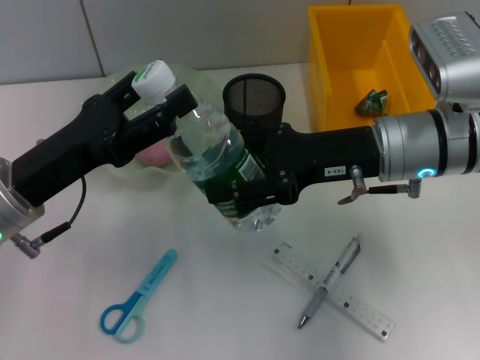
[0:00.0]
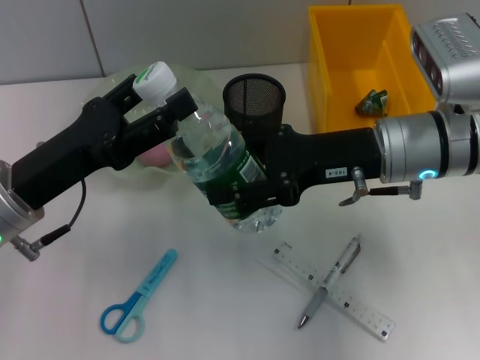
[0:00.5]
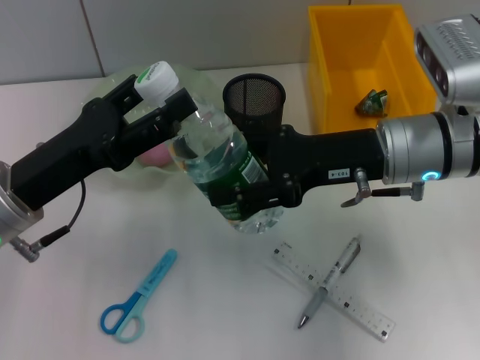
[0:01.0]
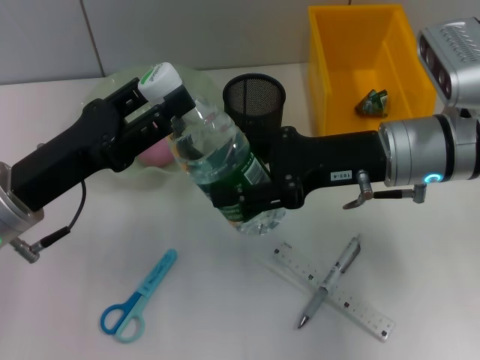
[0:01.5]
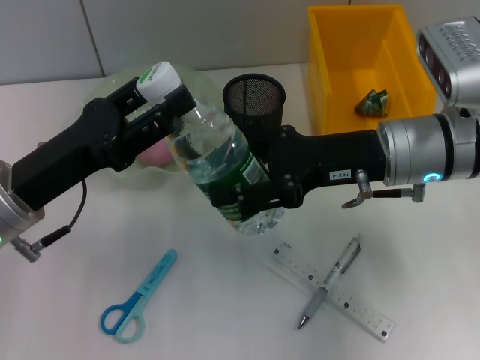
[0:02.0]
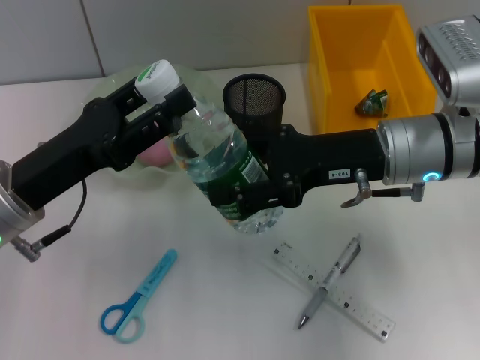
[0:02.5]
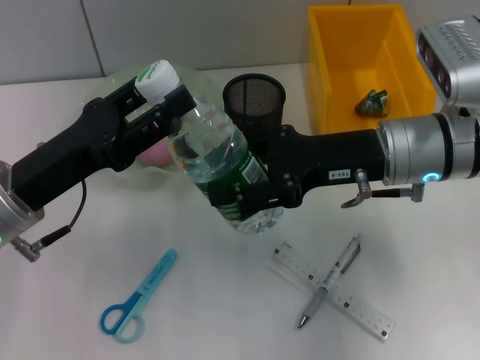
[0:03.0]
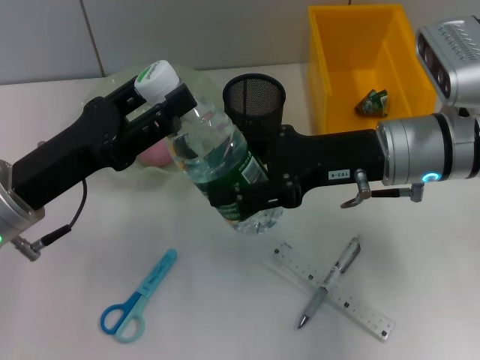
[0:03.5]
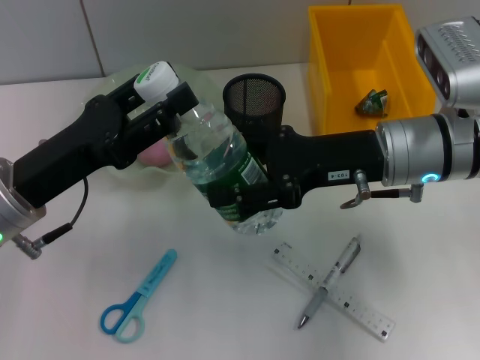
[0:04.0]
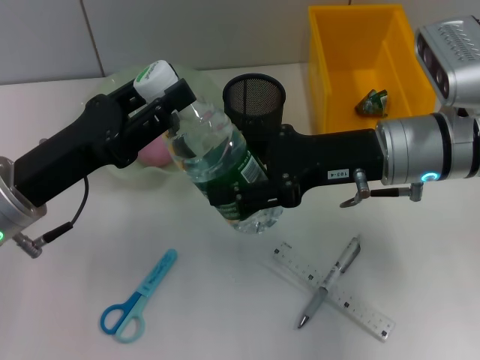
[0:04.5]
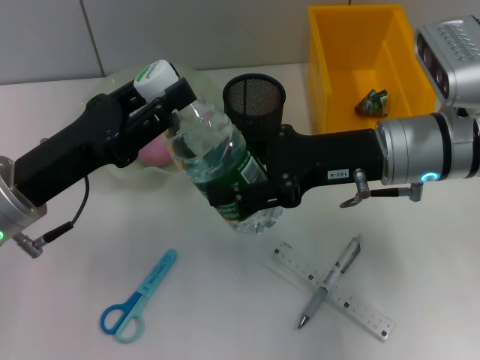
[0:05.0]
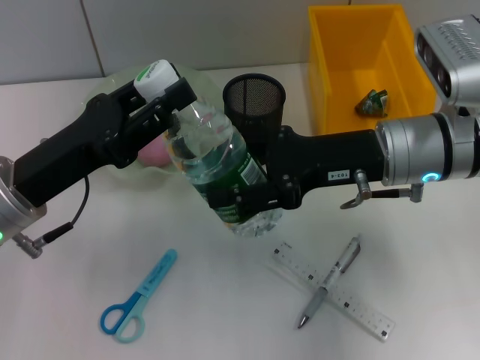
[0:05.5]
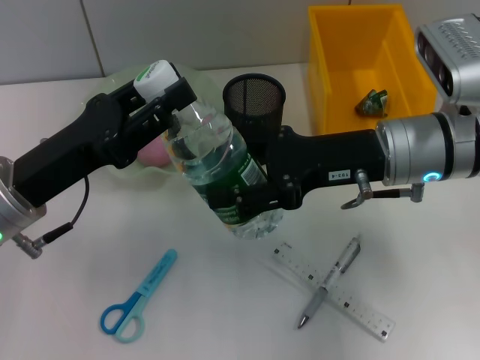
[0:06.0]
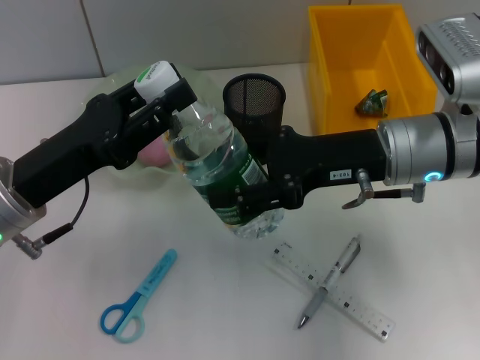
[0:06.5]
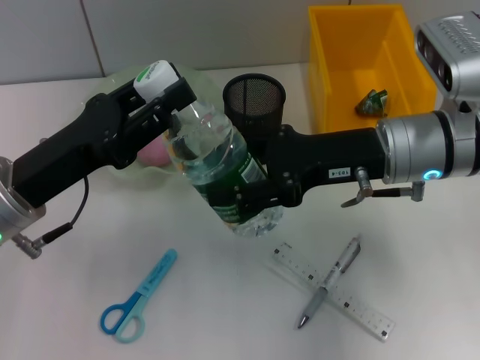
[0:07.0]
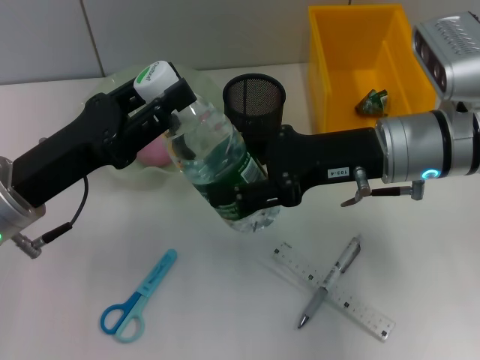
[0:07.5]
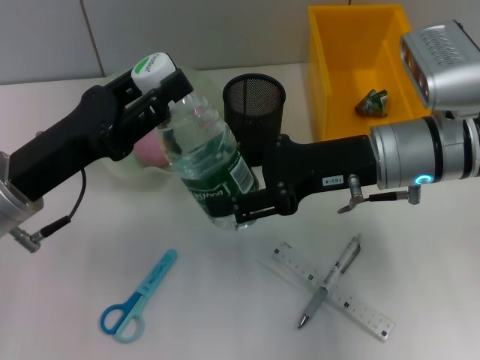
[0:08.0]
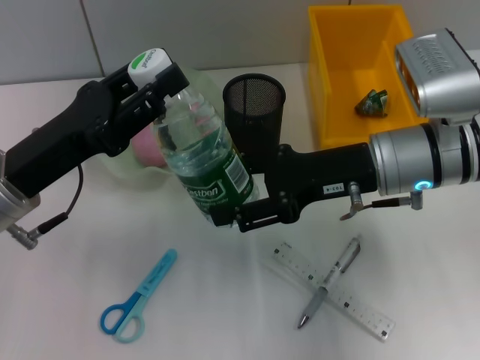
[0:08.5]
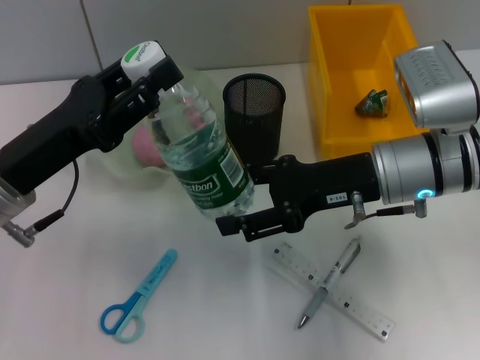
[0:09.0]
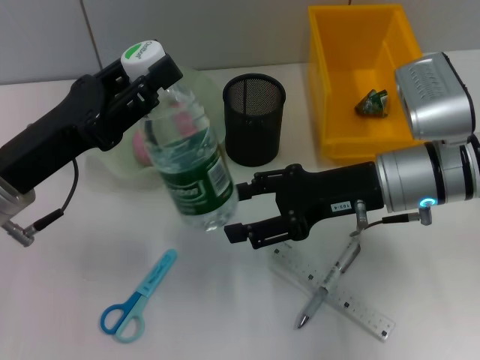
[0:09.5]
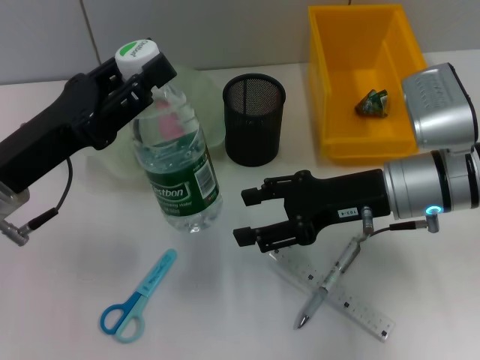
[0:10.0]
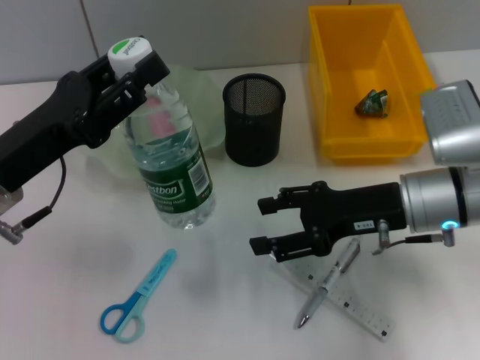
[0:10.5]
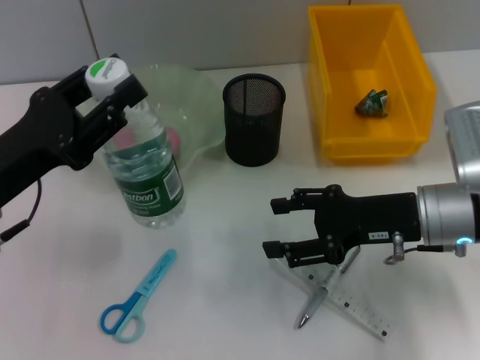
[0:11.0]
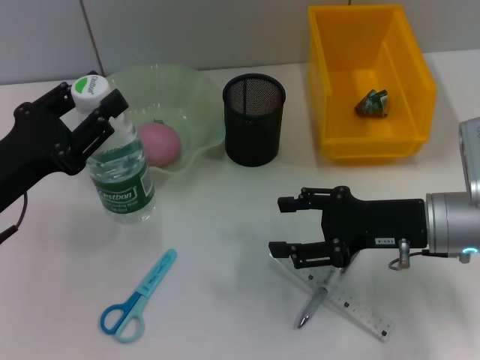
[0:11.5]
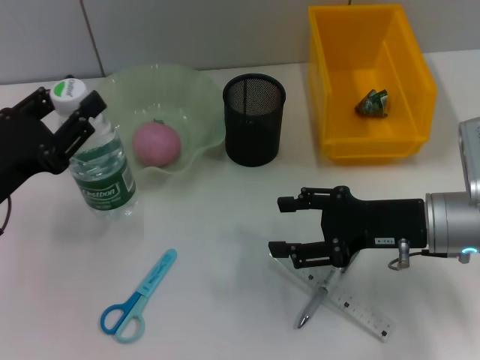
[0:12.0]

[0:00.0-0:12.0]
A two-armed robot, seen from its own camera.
Step, 0:00.0 to 0:08.0: Pass the water bottle from the right hand to the left hand.
0:00.0 to 0:08.0: The two grippers keep their place.
0:10.0 to 0:12.0: The right gripper moves roughly 5 cm, while the left gripper shifts by roughly 5 cm.

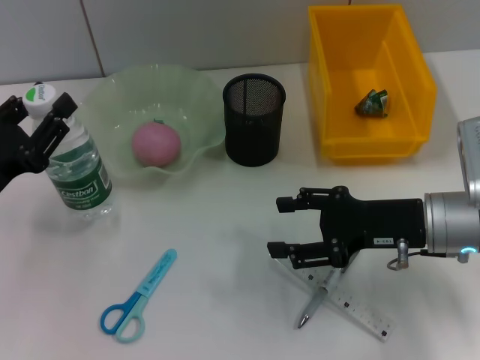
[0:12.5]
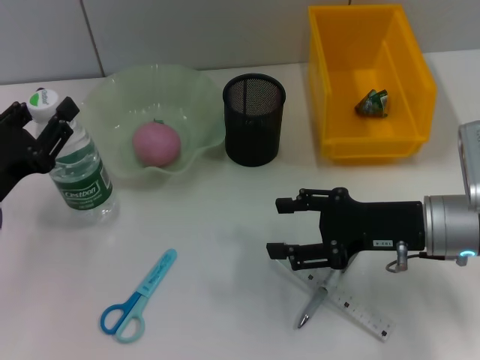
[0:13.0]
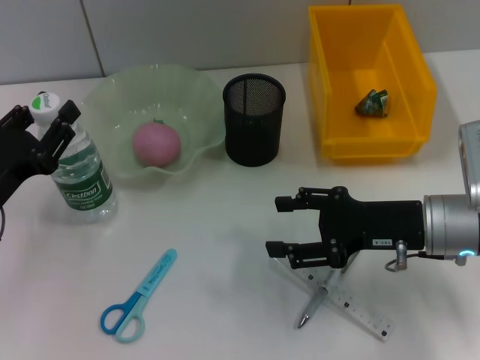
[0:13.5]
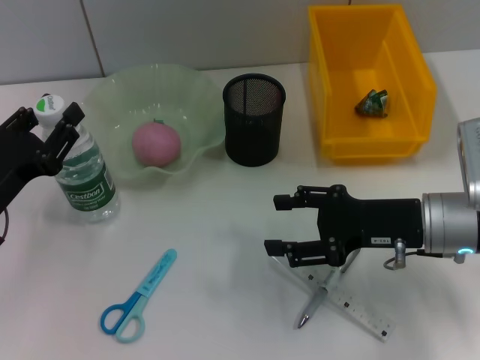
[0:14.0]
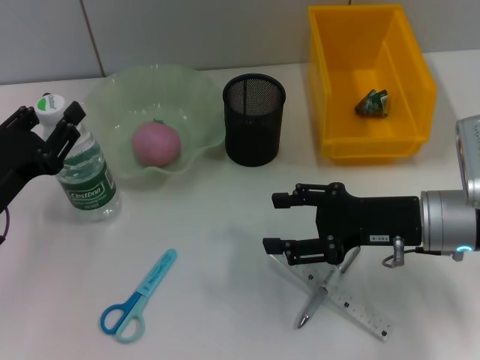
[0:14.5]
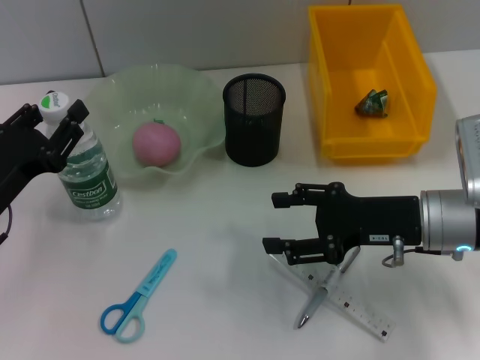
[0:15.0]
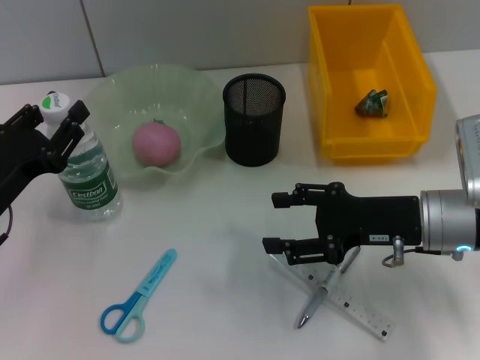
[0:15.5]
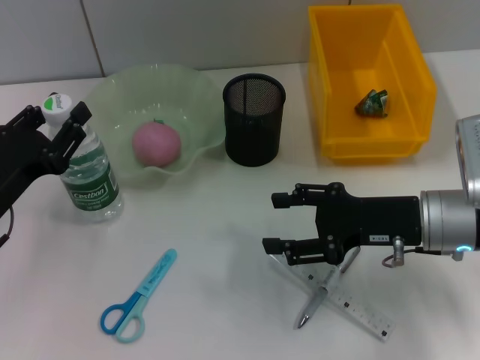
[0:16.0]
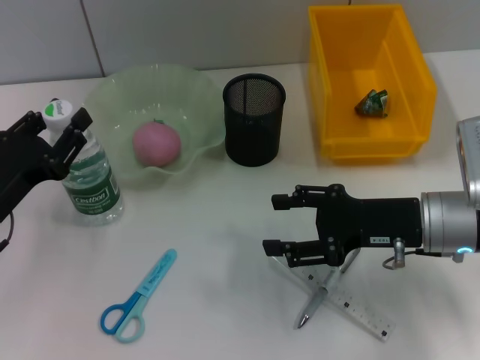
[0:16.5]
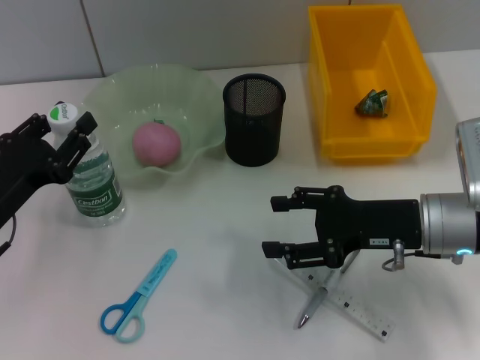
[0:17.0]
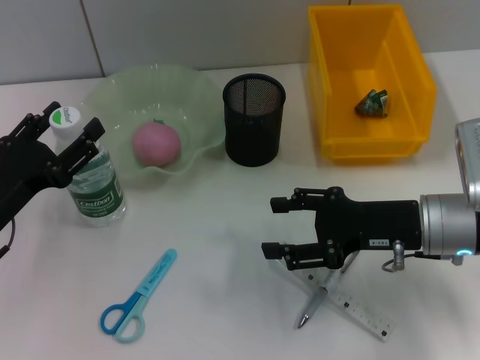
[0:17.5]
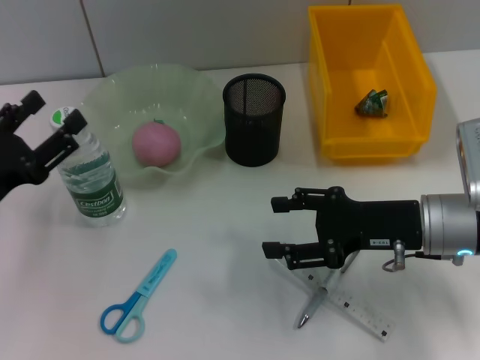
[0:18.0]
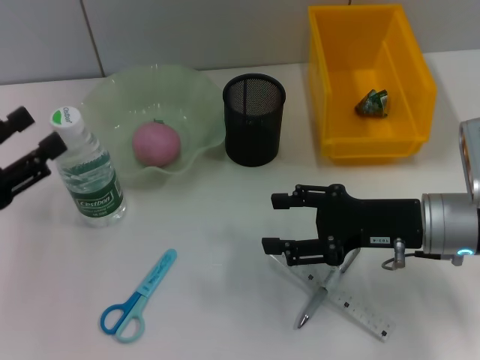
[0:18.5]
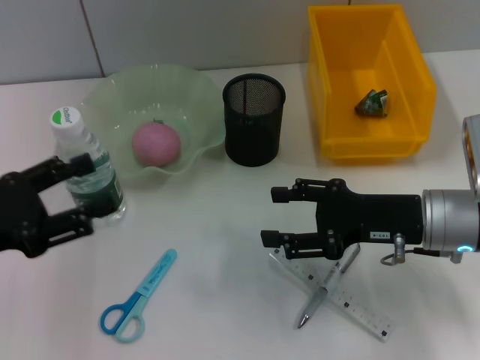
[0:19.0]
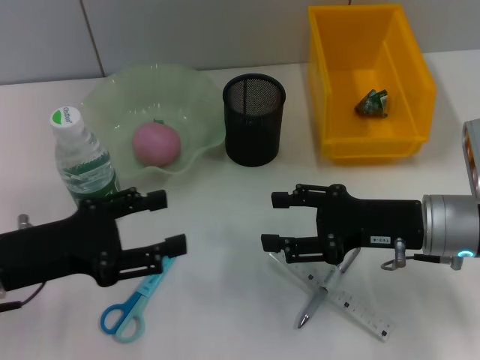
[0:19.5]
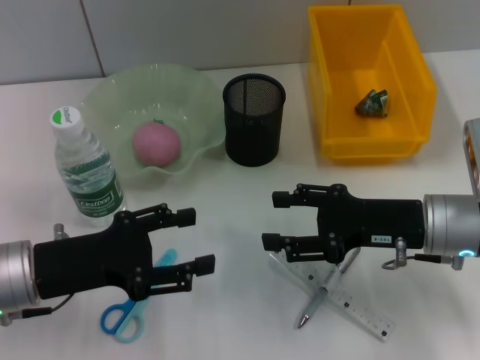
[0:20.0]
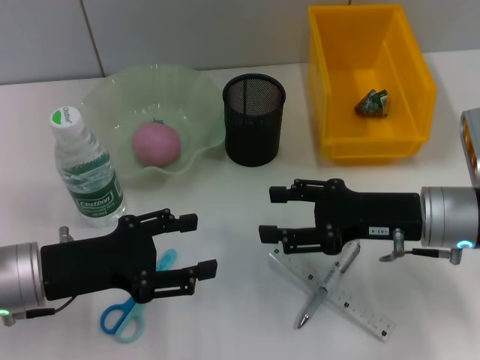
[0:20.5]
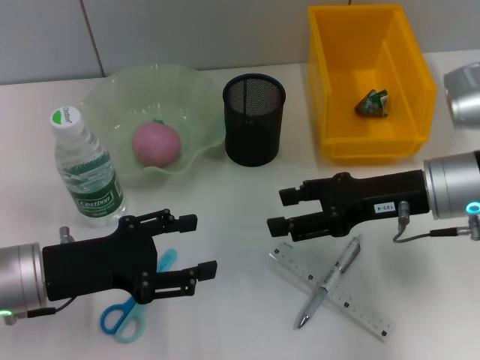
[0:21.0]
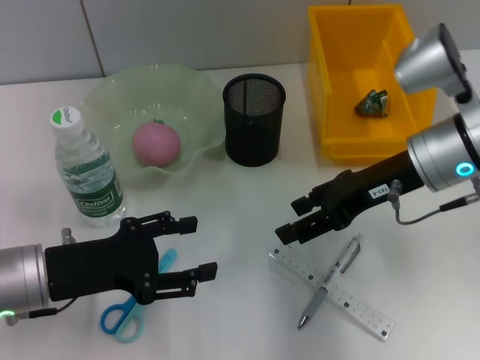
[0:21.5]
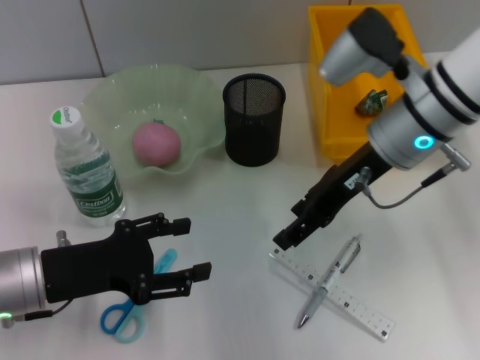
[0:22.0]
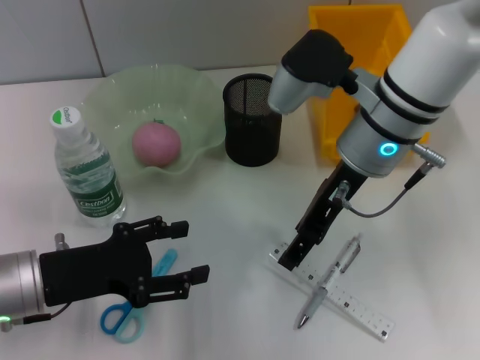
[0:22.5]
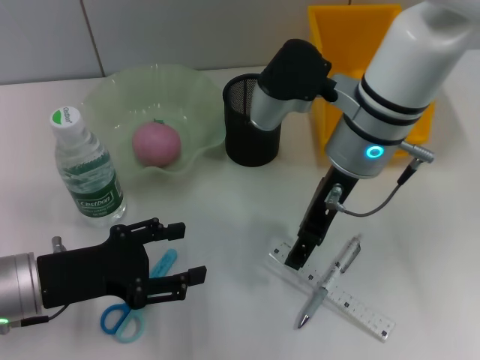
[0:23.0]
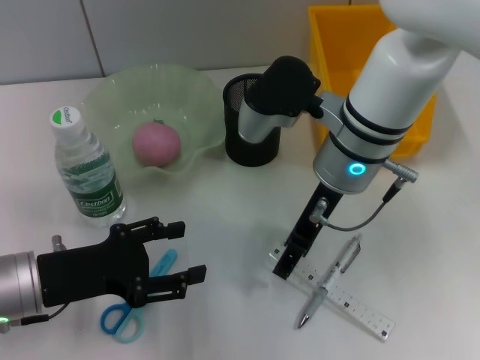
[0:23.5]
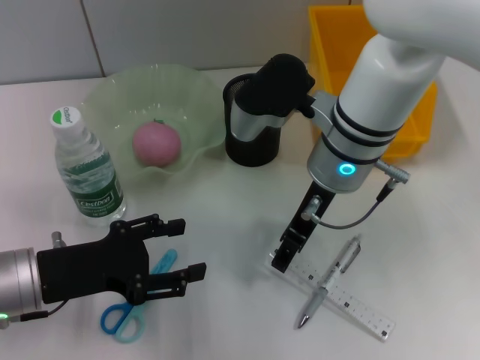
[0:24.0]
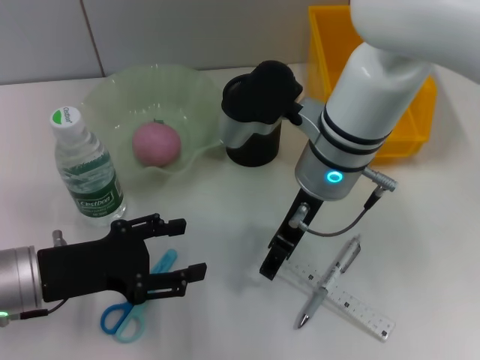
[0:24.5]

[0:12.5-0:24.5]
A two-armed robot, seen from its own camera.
Step, 0:12.5 to 0:17.5: Place the water bottle on the table with the left hand.
0:12.5 to 0:14.5: The grippers stay close to where they were, moving slightly.
0:14.5 to 0:16.5: Both grippers stay about where they are.
0:16.5 to 0:18.5: The left gripper ends up roughly 5 cm from where it was, and opens its fingers.
0:18.5 to 0:20.5: The left gripper moves to the right, roughly 10 cm.
0:20.5 to 0:22.5: The right gripper shifts approximately 15 cm to the left, upward and forward.
0:22.5 to 0:24.5: The right gripper shifts by about 5 cm.

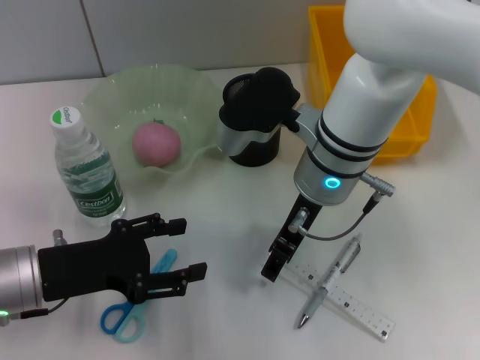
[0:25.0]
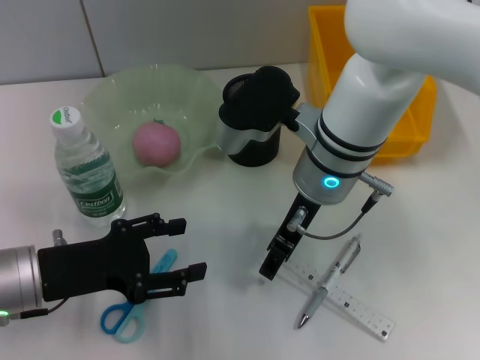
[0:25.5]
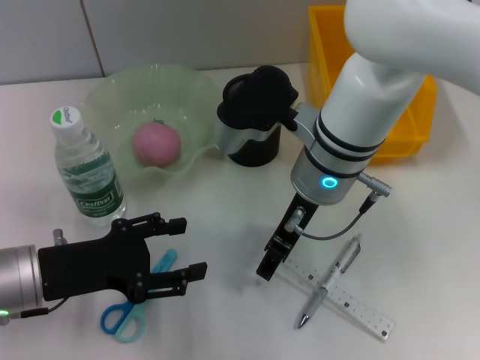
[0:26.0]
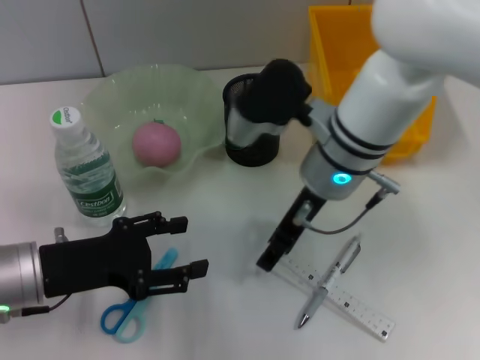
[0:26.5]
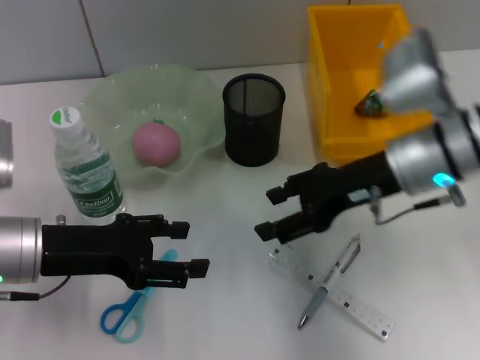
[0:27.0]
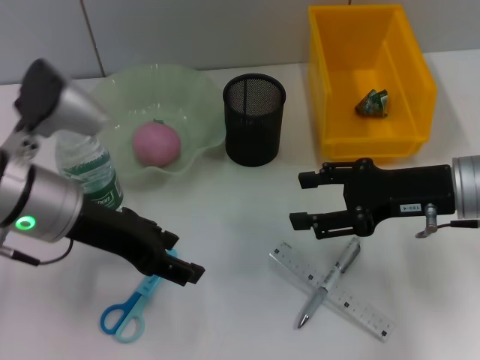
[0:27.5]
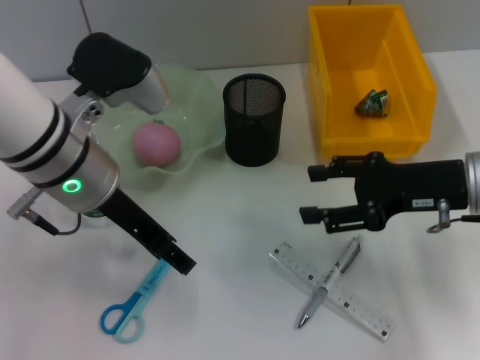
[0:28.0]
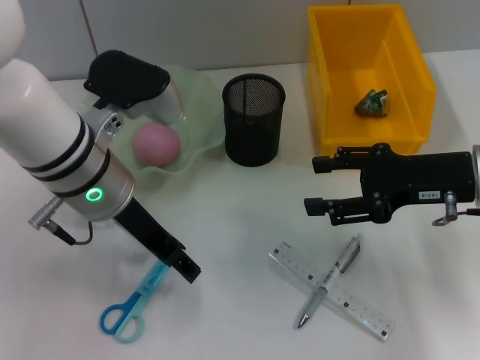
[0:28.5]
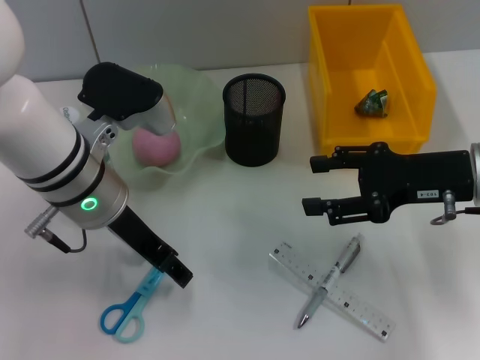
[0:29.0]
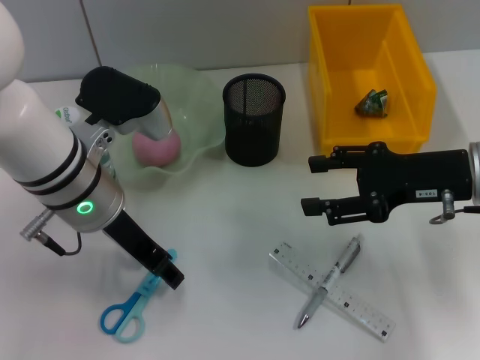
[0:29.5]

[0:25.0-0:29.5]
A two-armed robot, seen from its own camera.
0:25.0 to 0:27.0: The right gripper heads to the right, covering roughly 10 cm.
0:27.0 to 0:29.5: The left gripper is displaced to the right and forward by about 10 cm; the right gripper heads to the right, covering approximately 5 cm.
